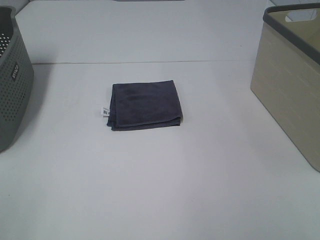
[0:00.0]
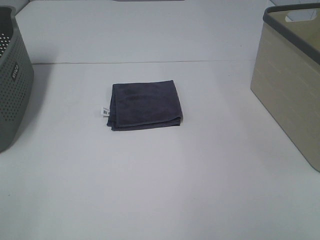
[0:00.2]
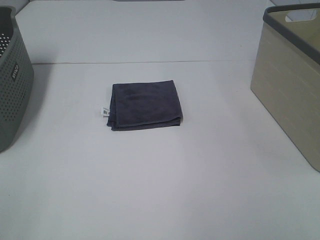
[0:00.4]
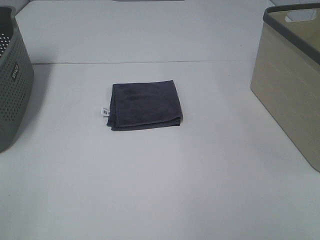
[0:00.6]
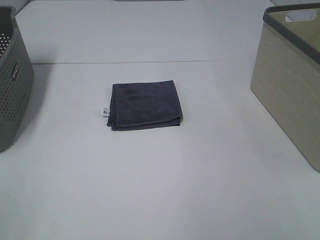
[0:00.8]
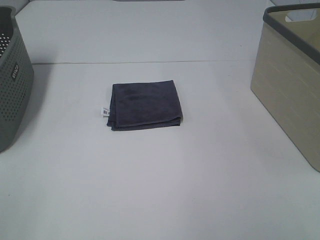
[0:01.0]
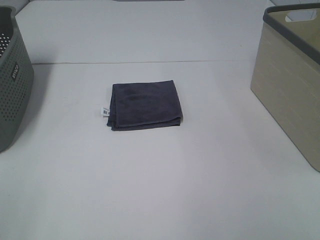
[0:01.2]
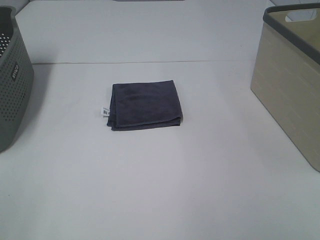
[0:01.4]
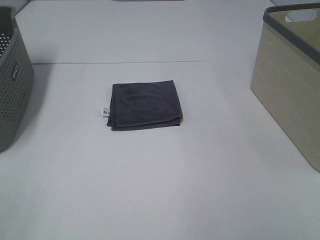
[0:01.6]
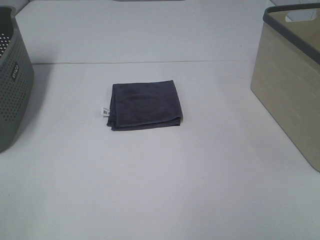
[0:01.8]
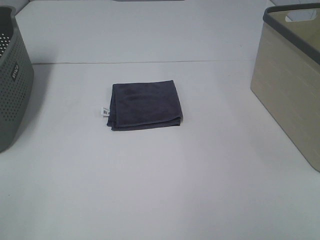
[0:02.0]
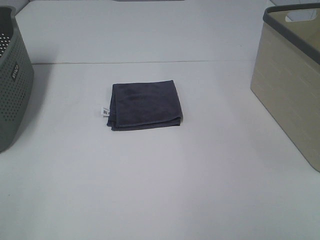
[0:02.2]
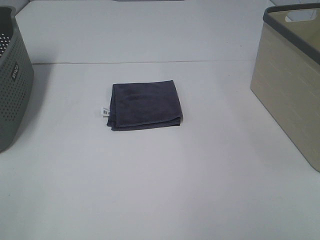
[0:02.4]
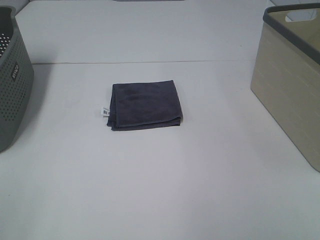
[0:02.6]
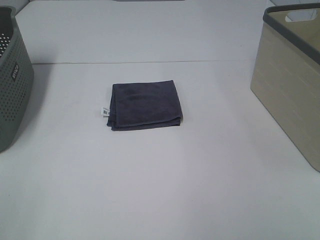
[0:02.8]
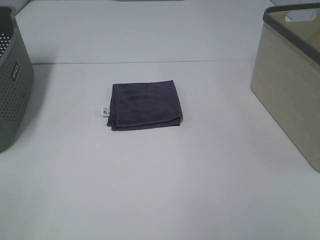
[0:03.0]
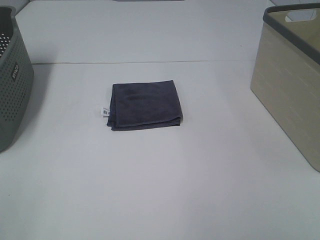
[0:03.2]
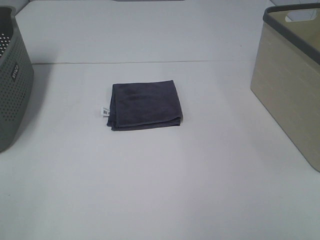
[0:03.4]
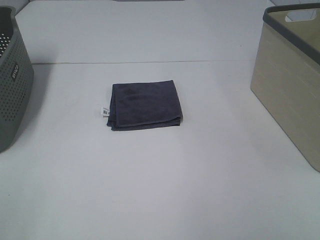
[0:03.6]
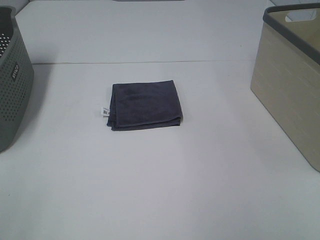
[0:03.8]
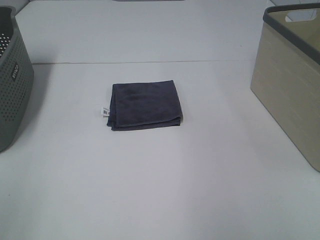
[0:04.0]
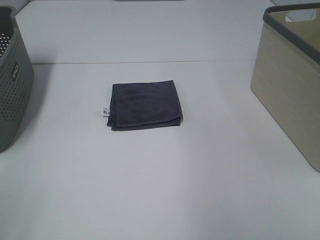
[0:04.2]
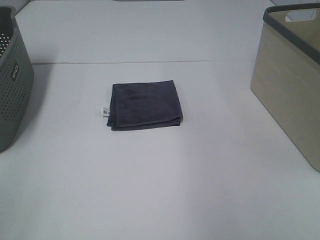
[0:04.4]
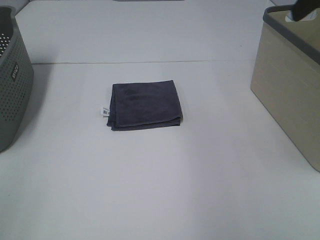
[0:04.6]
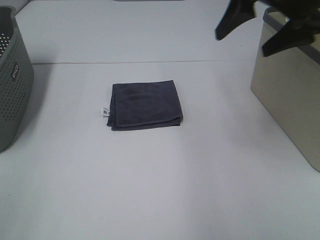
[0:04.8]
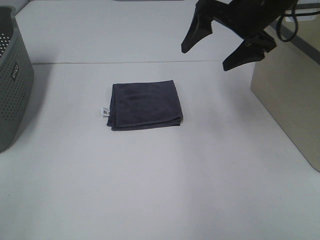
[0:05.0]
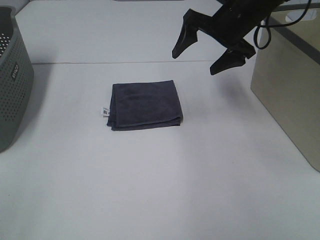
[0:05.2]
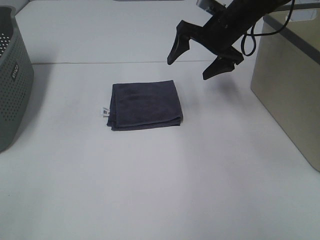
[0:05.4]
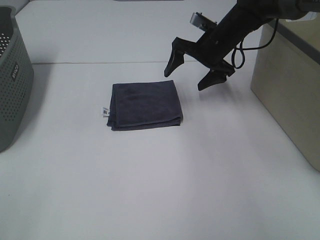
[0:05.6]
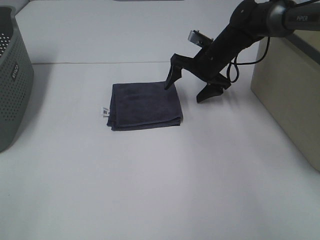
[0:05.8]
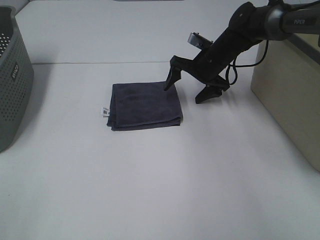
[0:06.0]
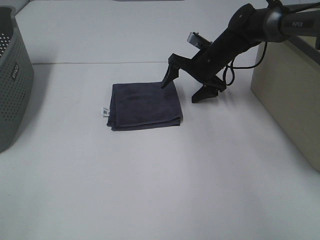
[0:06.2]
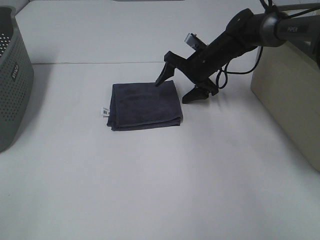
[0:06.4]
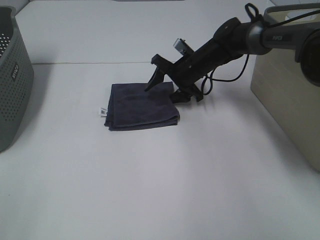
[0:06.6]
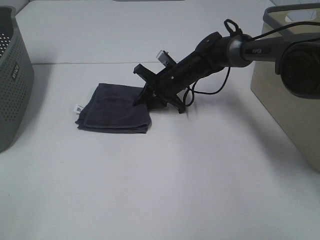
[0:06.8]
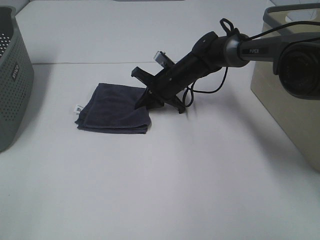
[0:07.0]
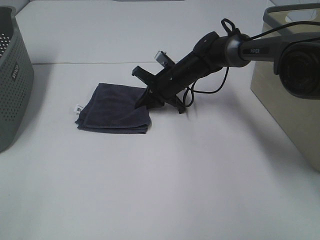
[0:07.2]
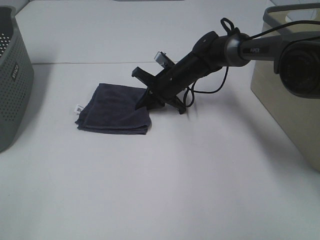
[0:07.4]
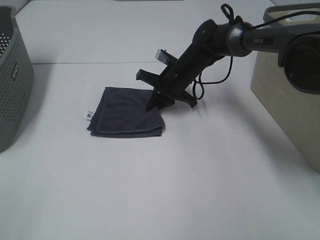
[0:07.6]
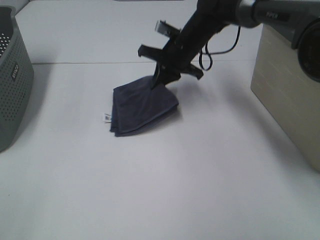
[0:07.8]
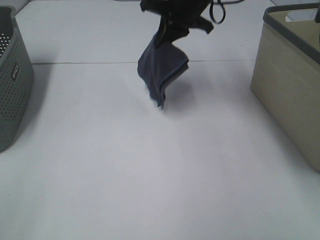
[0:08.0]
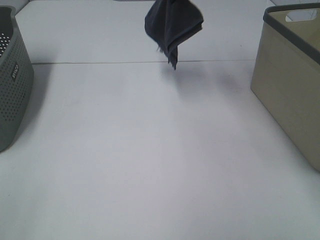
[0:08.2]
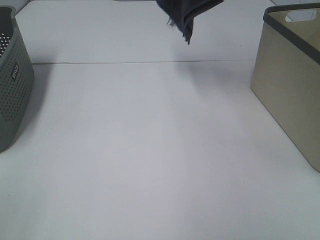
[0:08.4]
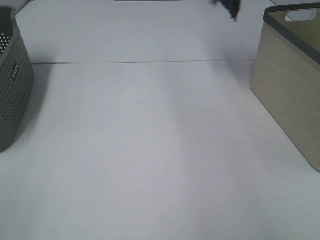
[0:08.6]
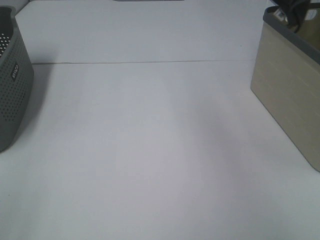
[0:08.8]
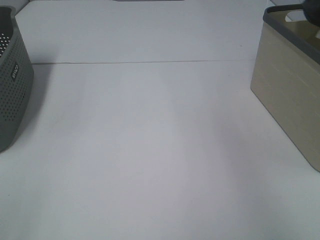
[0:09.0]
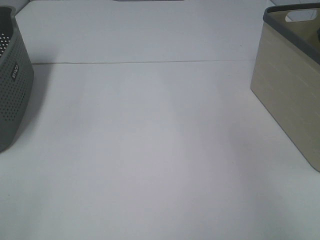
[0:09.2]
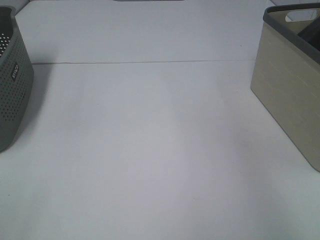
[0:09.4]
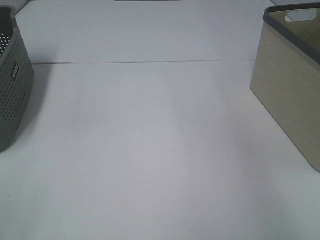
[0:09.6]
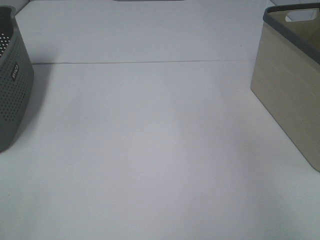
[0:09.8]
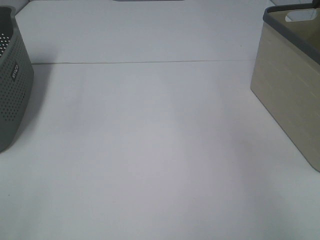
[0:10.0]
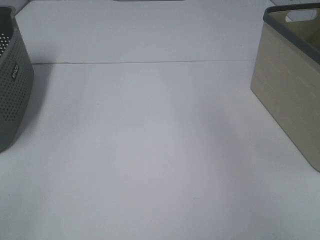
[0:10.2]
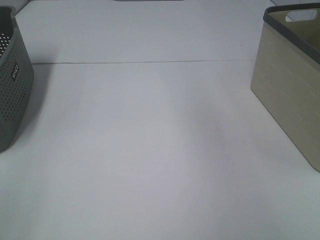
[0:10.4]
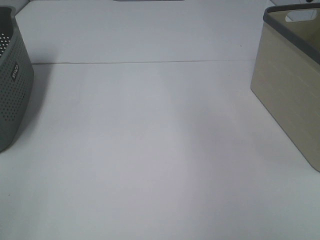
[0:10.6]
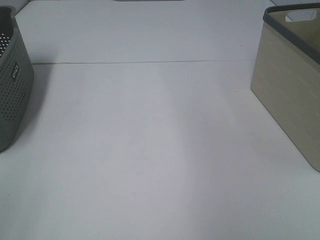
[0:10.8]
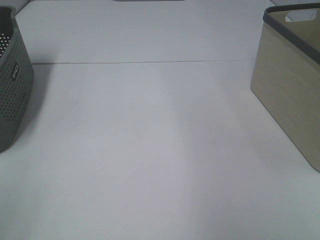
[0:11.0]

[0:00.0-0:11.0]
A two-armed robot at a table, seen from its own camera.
Step, 0:00.0 to 0:06.8: Right hand: grab the folded grey towel.
Step, 0:07.0 to 0:09.6: Right hand: place the grey towel in right basket.
0:00.0 to 0:03.2: Both grippers stay about where they are.
0:03.2 to 0:04.8: The right gripper shifts about 35 cm forward.
0:04.8 to 0:06.2: The right gripper shifts roughly 25 cm downward and forward.
0:06.2 to 0:07.8: The right gripper travels to the left and upward by about 10 cm, and closes.
0:07.8 to 0:09.4: The right gripper goes roughly 35 cm to the right and upward, and opens.

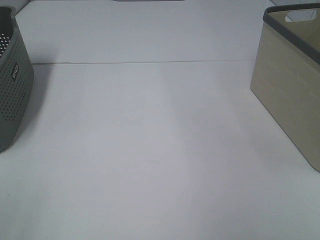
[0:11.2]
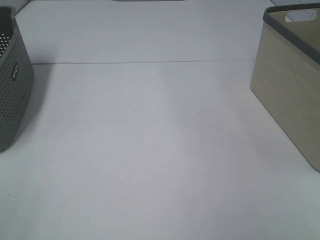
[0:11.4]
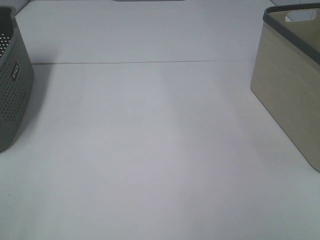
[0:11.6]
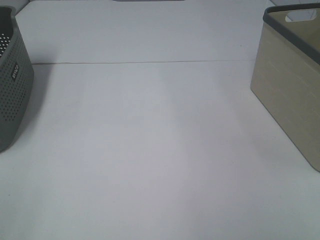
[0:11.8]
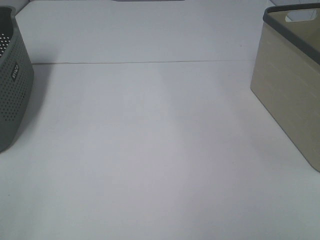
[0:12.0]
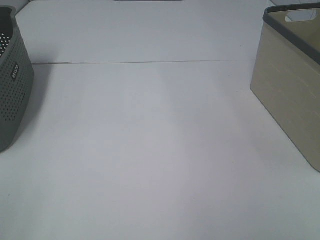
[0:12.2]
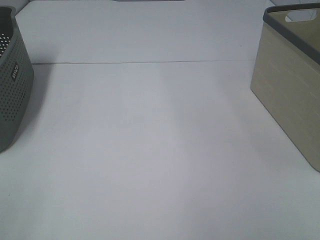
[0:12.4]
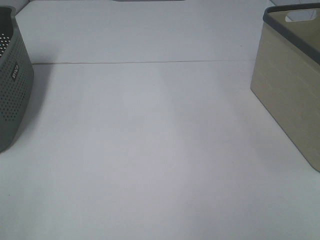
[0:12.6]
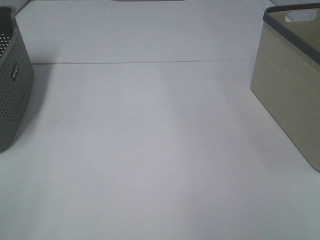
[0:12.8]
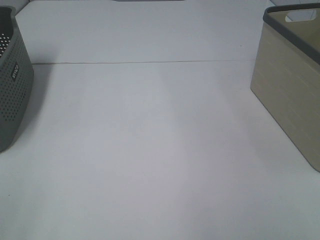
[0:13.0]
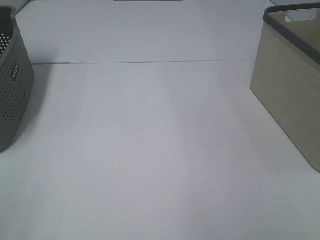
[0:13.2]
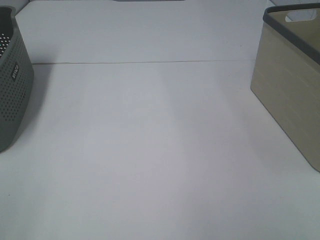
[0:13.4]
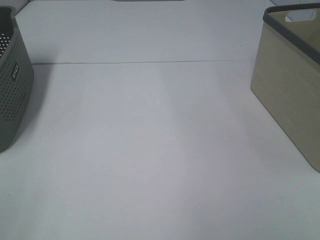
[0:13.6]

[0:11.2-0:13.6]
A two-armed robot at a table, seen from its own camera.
0:12.4 to 0:13.6: Neither gripper changes place.

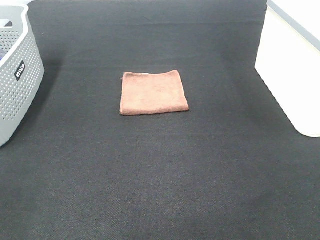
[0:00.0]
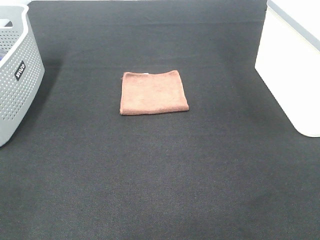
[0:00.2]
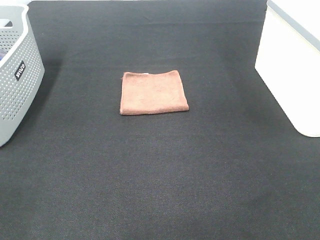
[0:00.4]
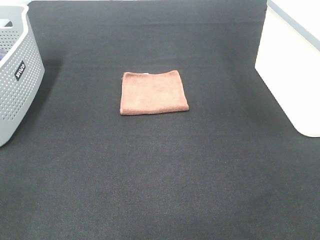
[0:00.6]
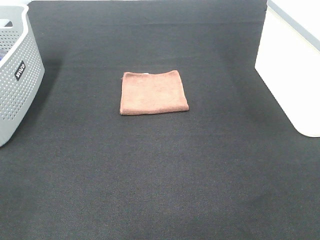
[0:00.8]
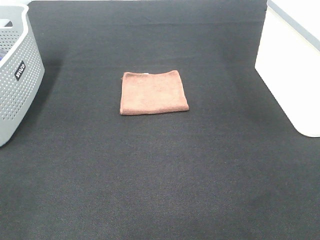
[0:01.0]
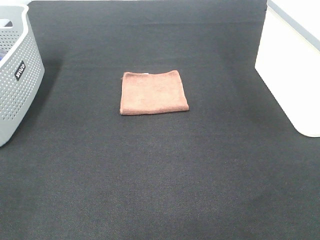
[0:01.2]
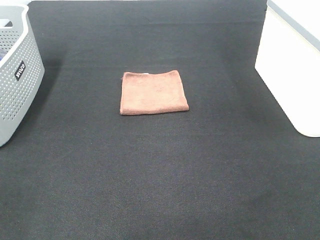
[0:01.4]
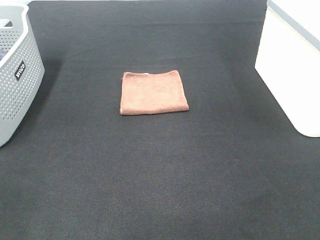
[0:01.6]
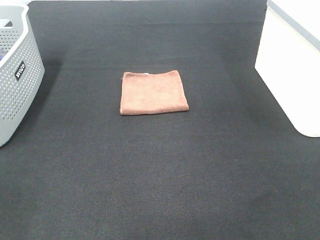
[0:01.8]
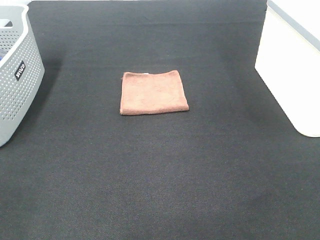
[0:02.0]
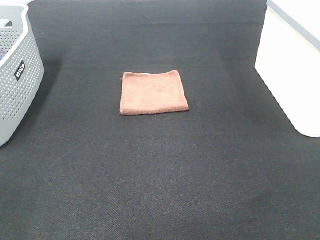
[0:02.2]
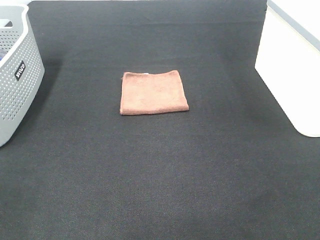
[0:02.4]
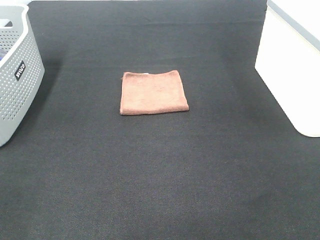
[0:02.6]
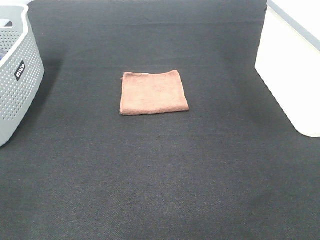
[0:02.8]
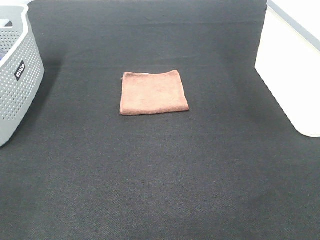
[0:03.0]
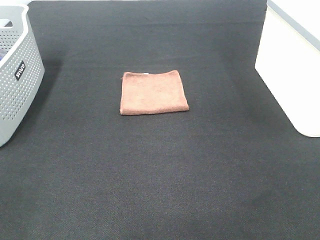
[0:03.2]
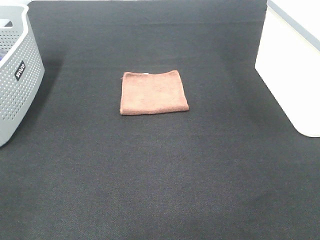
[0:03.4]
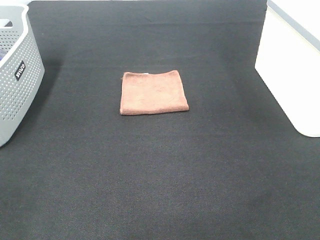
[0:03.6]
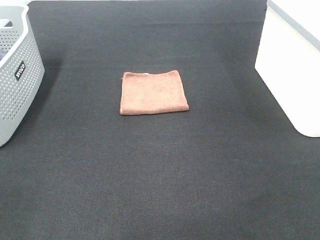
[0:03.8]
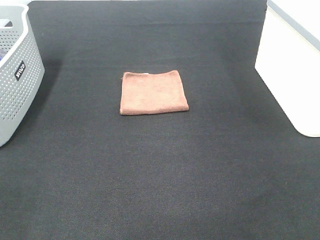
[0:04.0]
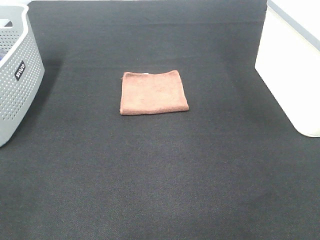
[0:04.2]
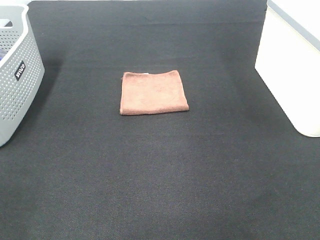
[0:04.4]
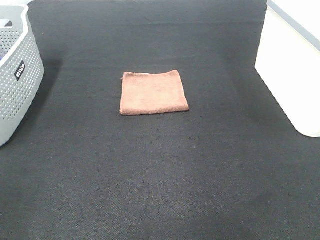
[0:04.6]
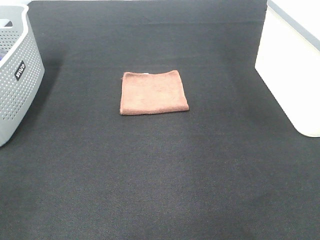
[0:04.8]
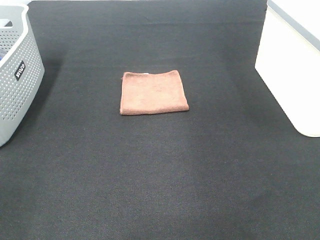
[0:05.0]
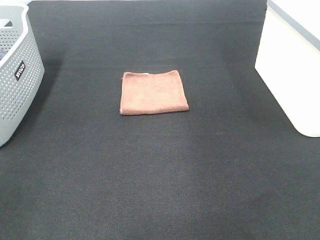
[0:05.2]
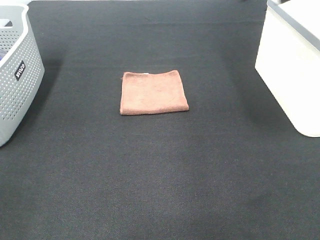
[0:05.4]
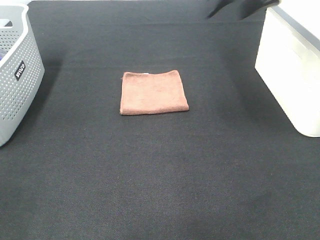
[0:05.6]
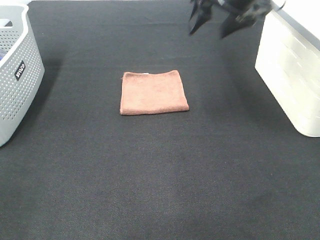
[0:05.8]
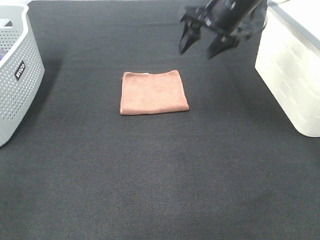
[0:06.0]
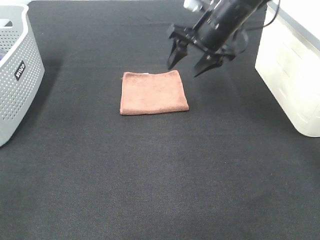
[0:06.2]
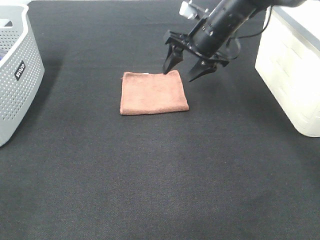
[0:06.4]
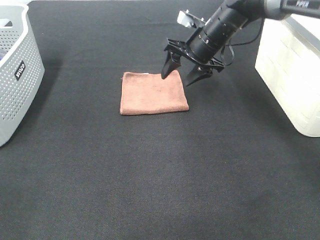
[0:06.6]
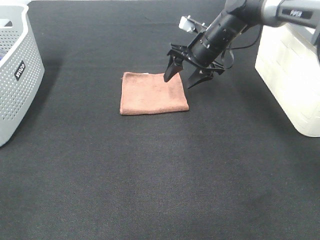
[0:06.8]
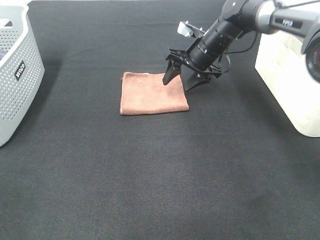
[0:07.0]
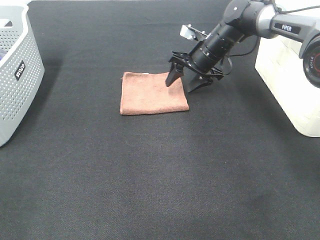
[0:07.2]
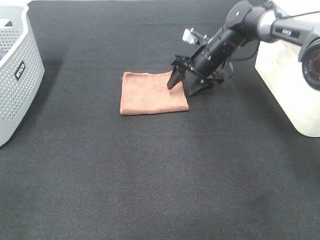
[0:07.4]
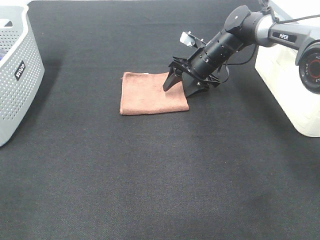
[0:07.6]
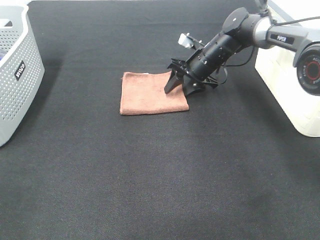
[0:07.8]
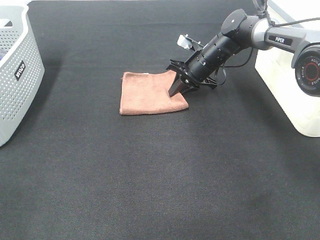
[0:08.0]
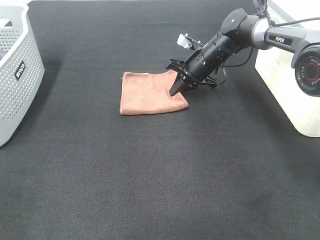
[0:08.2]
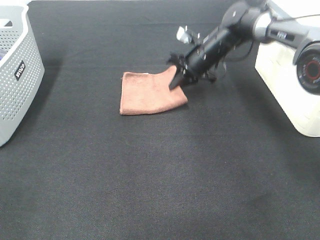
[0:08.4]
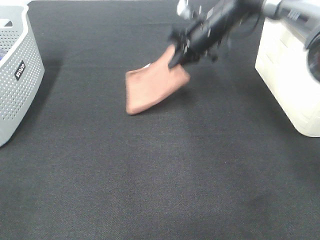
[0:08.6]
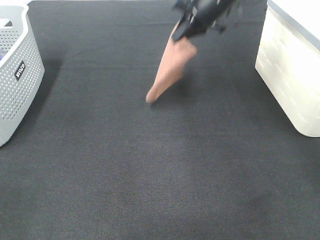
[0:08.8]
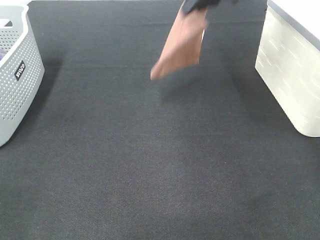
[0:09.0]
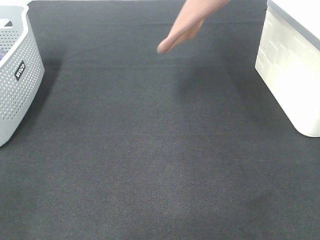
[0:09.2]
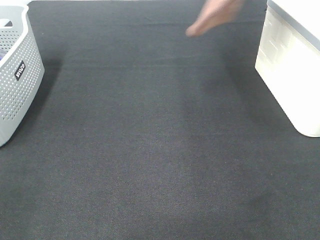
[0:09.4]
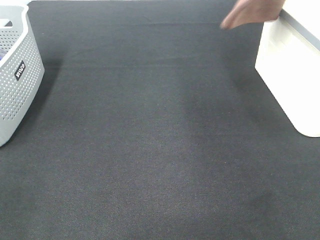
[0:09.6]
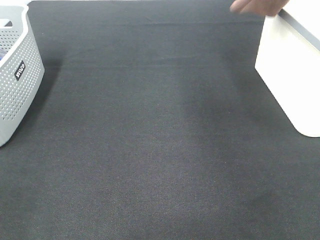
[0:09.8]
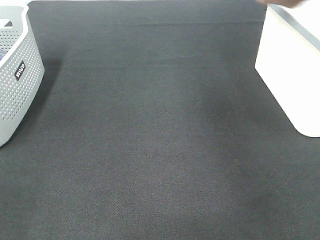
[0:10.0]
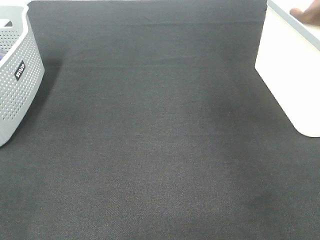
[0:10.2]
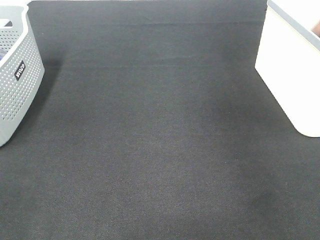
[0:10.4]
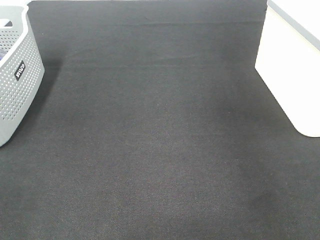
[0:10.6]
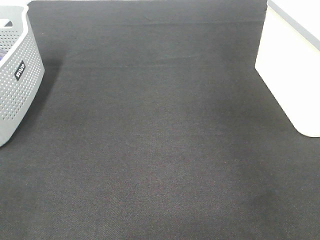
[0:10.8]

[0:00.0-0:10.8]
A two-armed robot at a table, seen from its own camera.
Step, 0:00.0 to 0:08.2: Right hand: grab the folded brown towel.
0:00.0 to 0:03.0: The two grippers keep their place.
0:04.6 to 0:06.2: The right gripper shifts some 40 cm forward, downward and to the left.
0:06.2 to 0:07.8: The right gripper moves downward and forward, roughly 10 cm.
0:07.8 to 0:09.2: The right gripper shifts roughly 25 cm upward, and closes up.
0:09.2 to 0:10.8: The right gripper goes approximately 20 cm to the right, and opens its fingers.
